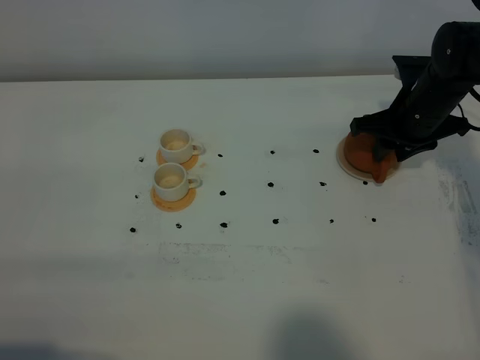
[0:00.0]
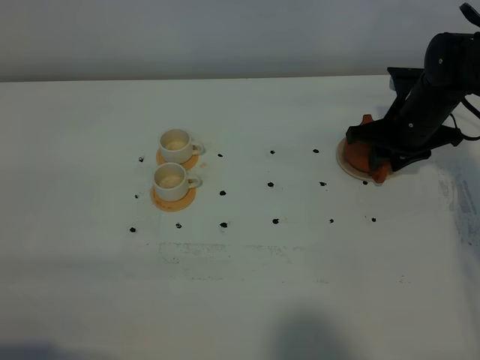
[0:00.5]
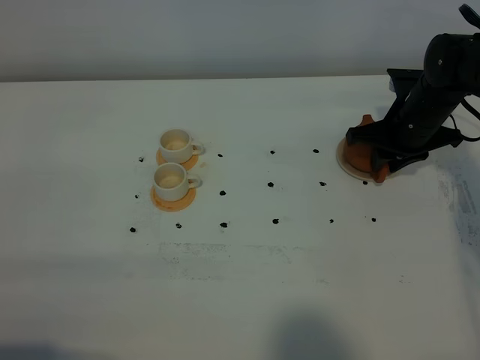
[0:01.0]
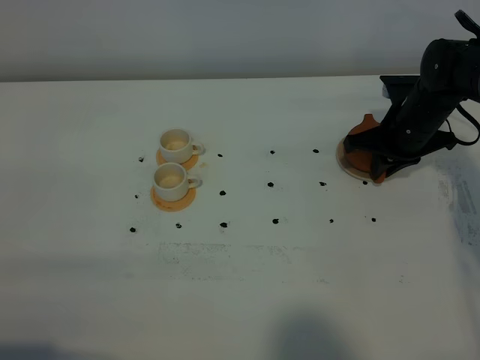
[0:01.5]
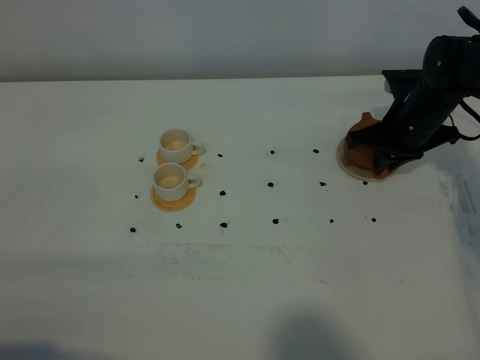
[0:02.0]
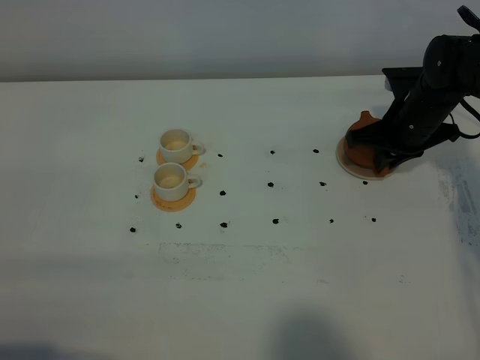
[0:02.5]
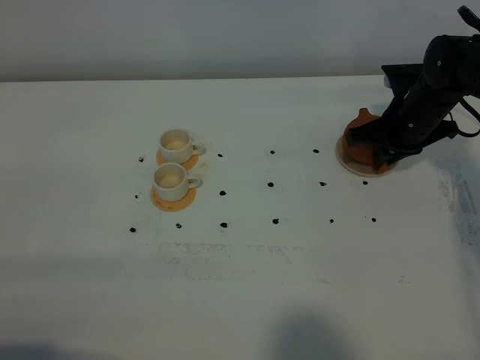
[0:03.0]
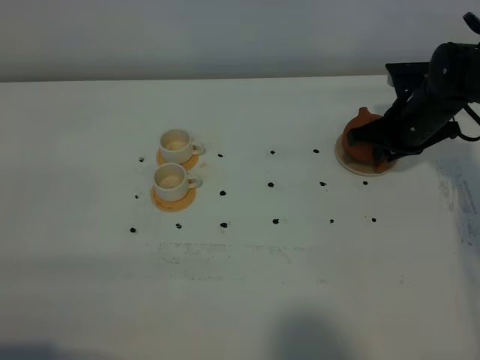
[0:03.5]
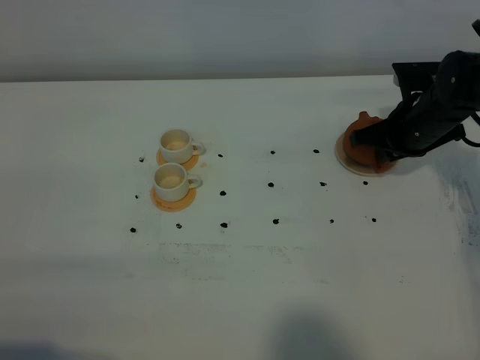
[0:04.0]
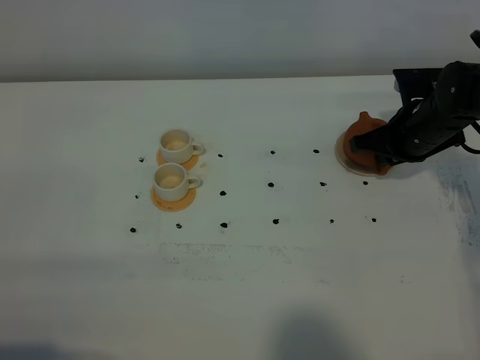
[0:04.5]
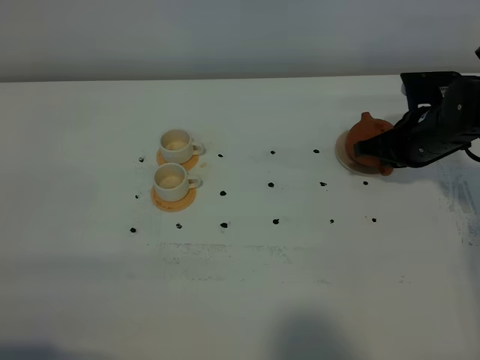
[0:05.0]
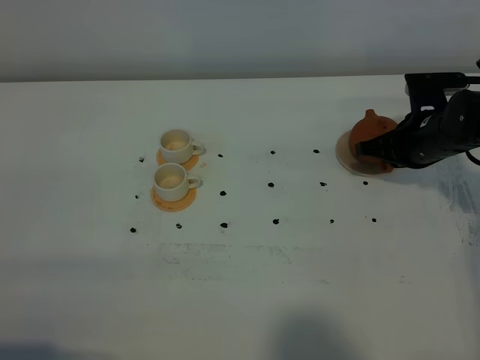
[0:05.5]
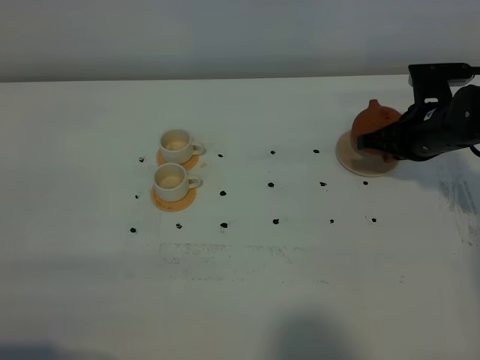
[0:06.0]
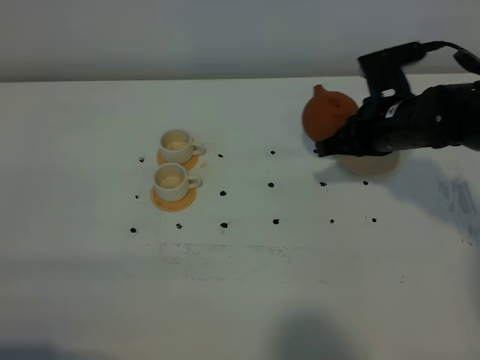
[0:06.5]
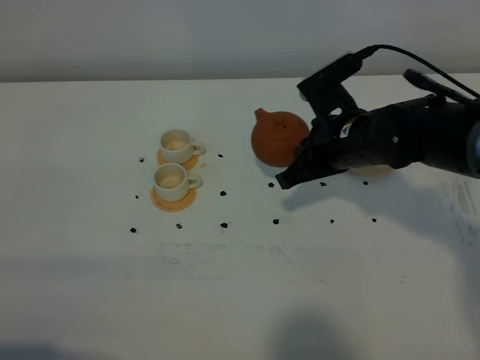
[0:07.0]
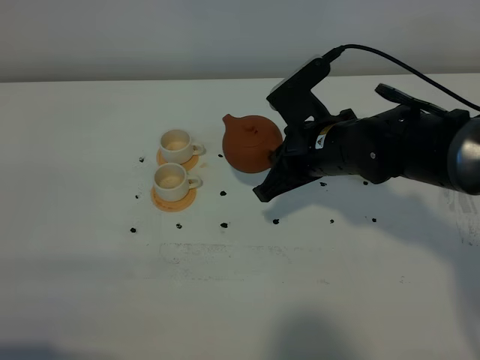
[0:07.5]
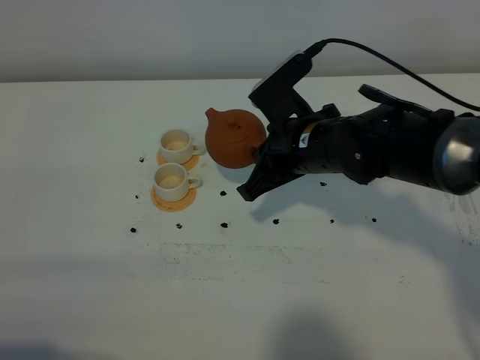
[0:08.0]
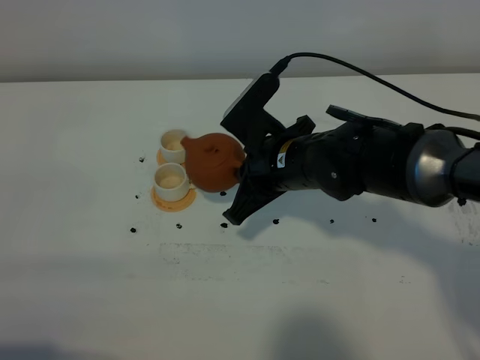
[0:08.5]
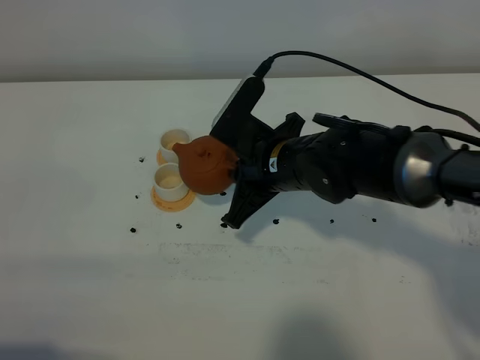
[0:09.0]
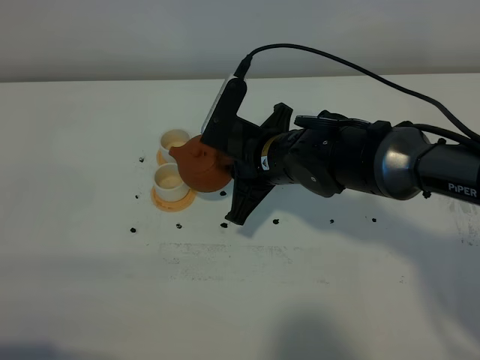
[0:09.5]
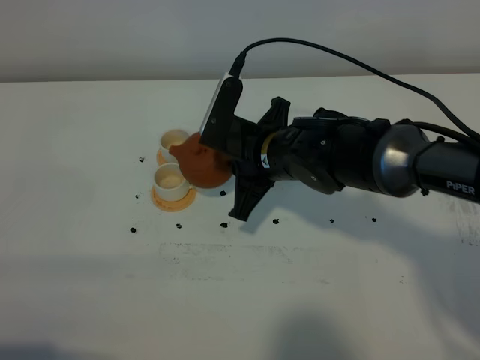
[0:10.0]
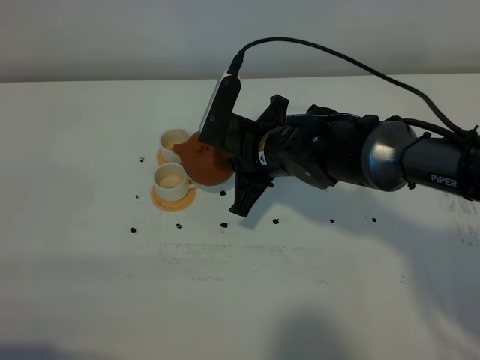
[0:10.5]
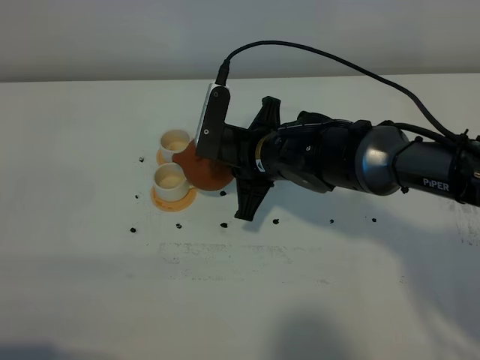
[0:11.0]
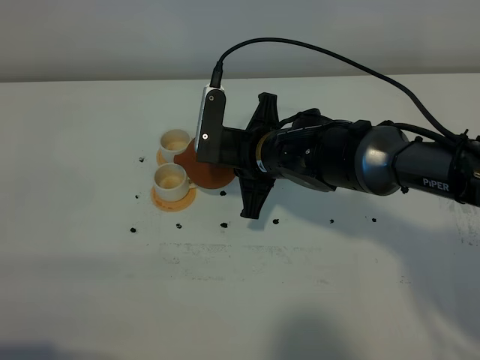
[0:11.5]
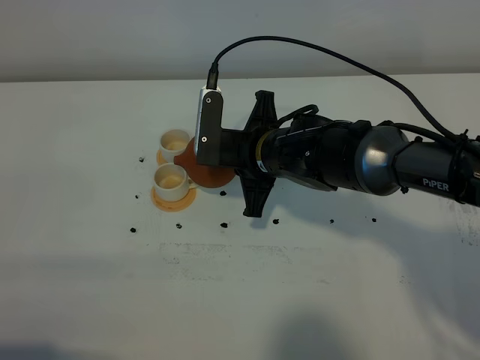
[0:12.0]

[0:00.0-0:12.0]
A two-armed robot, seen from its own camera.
Task of the whole recording: grasp the brown teapot and pour the tea into the two white teacups one by one, put the brown teapot back in its original place.
Step, 0:00.0 to 0:05.5: Pick up the teapot with the right gripper.
0:00.0 to 0:02.0: The right gripper closes up.
0:02.0 to 0:04.0: There are only small adjustments of the grippers.
0:04.0 to 0:06.0: The grippers move only a little.
0:06.0 to 0:08.0: The right gripper moves to the left and backward, about 20 cm.
0:10.0 to 0:12.0: The grippers move only a little.

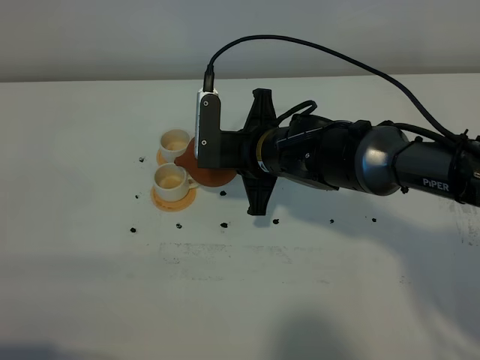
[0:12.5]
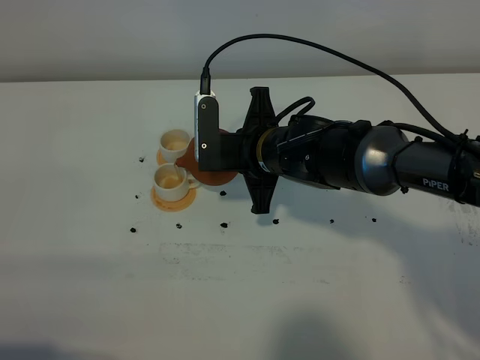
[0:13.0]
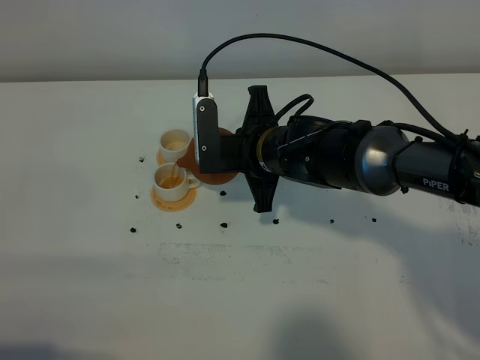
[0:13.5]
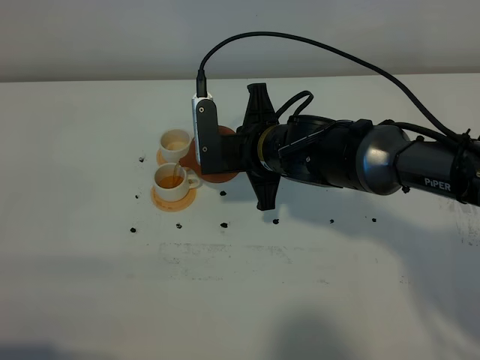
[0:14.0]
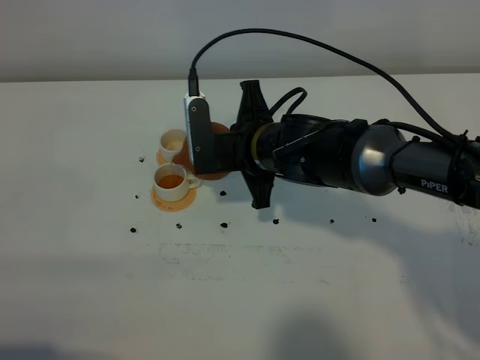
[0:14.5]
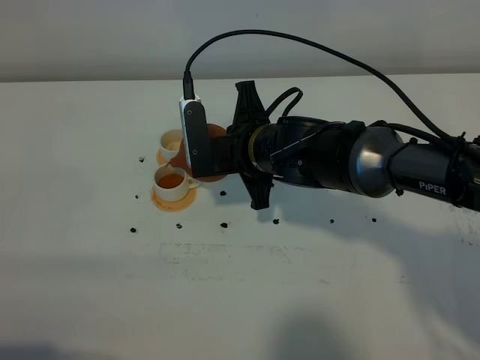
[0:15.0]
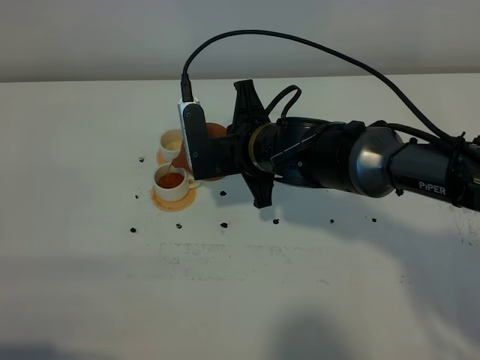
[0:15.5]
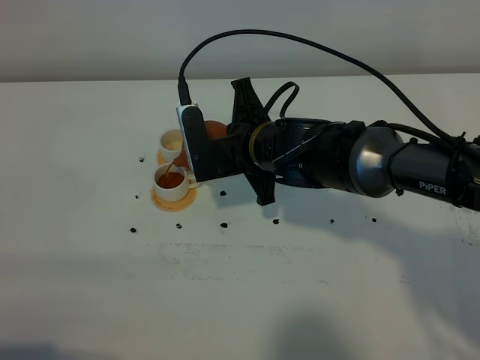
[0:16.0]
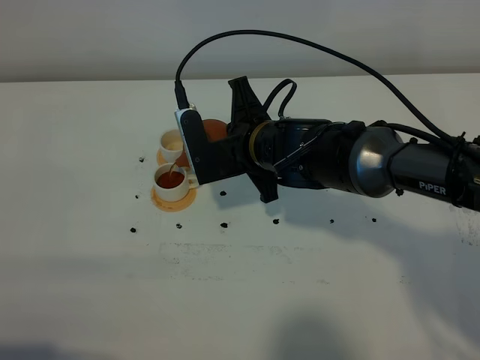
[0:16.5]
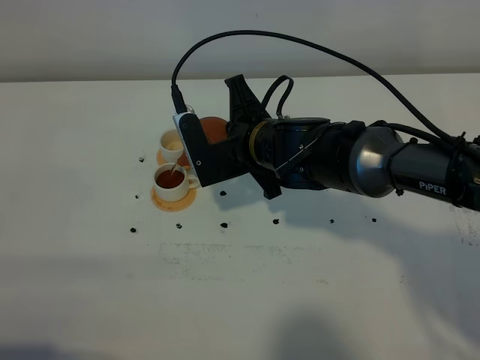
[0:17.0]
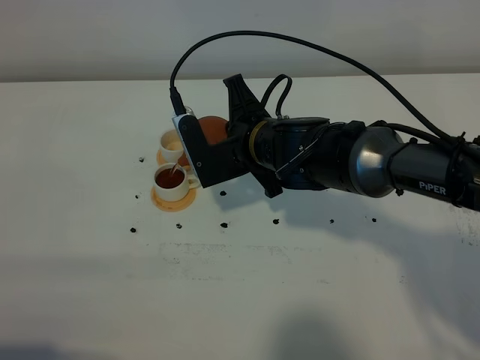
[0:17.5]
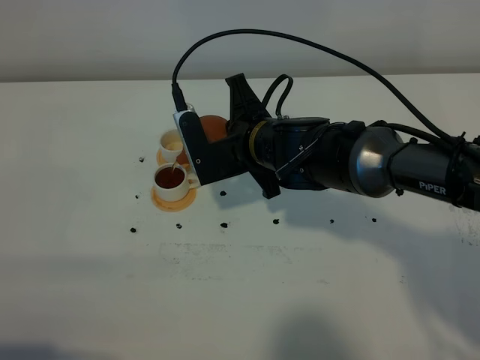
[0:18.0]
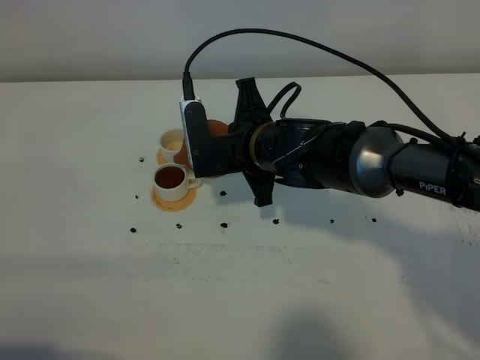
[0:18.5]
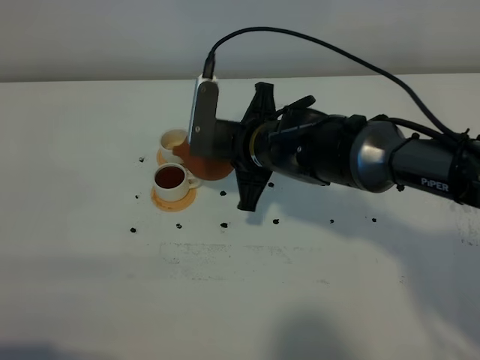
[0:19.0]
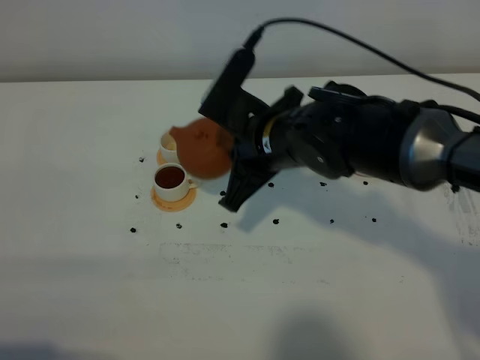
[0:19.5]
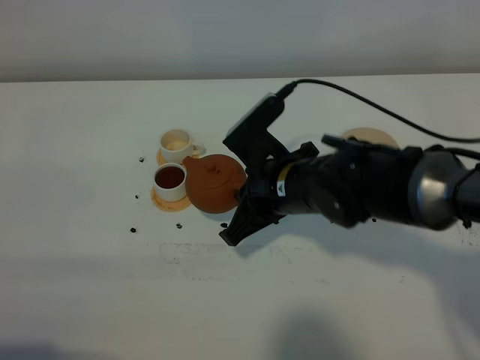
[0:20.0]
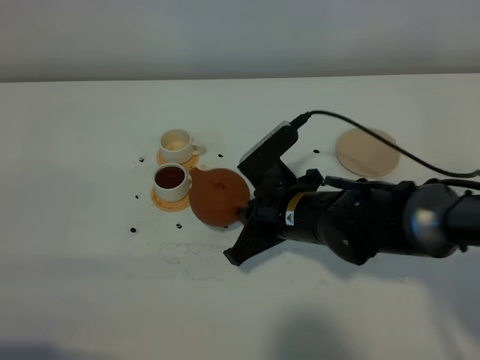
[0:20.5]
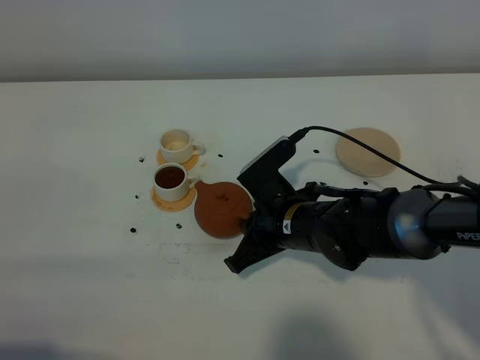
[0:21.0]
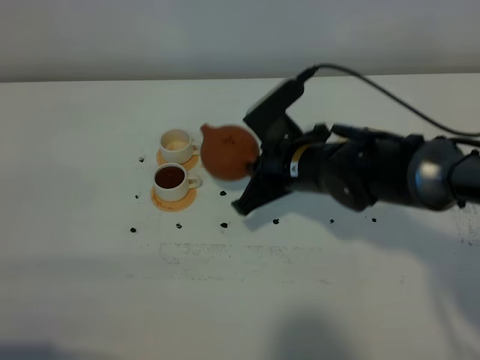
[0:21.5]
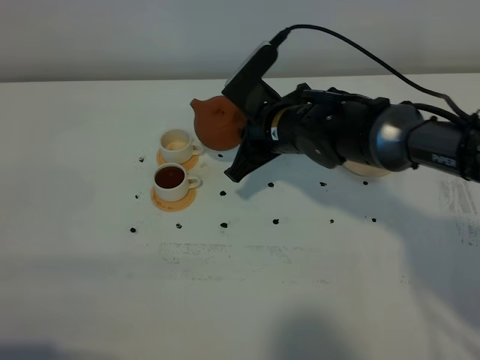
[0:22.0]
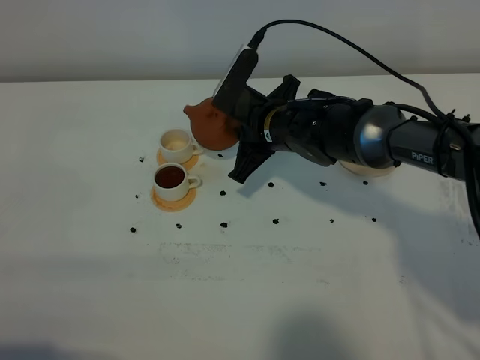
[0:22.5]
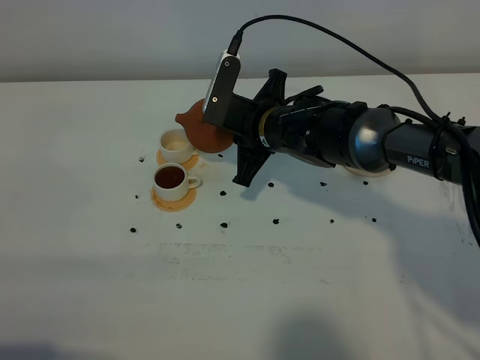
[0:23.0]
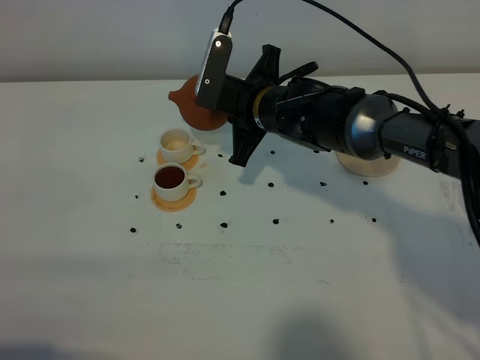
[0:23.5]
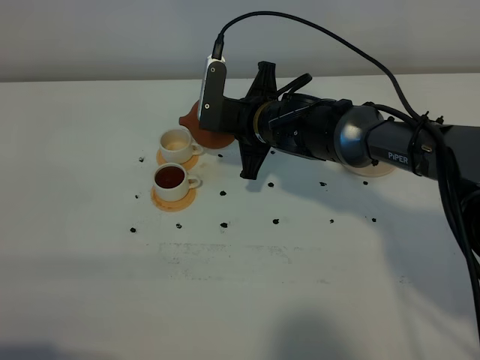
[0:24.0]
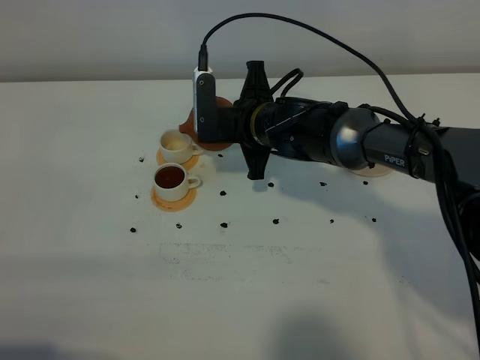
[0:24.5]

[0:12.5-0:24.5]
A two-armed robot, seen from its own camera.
Task of the whole recording: grasp the brown teapot and pour the tea into the two white teacups one by one, put the brown teapot back in its original place.
Step, 0:12.5 to 0:19.0: Pour tea into the teacup with the right gripper.
0:12.5 to 0:14.5: The grippers stay close to where they were, moving slightly.
0:14.5 to 0:18.5: The grippers stay close to where they were, moving slightly.
0:18.5 to 0:20.5: The right gripper shifts some 5 cm backward.
0:20.5 to 0:22.5: The right gripper heads forward, covering about 10 cm.

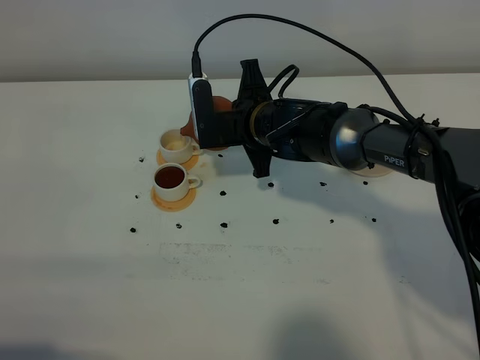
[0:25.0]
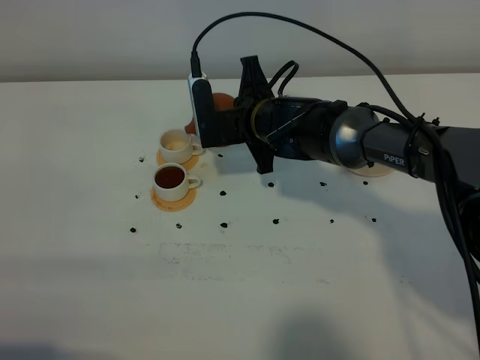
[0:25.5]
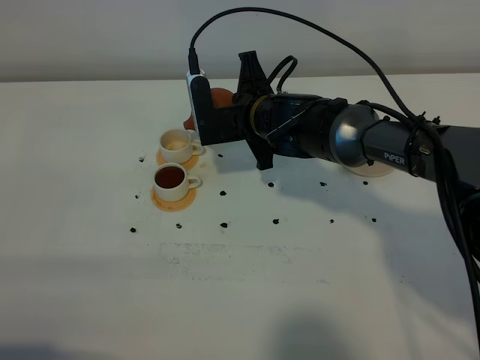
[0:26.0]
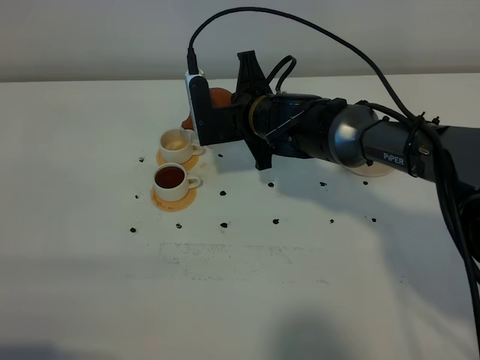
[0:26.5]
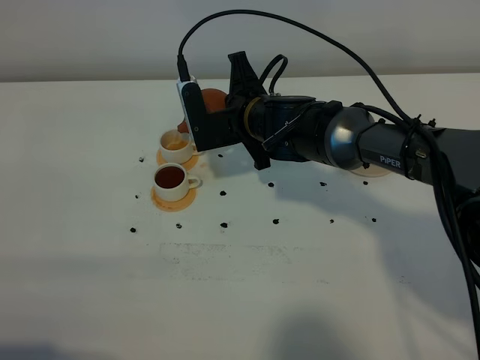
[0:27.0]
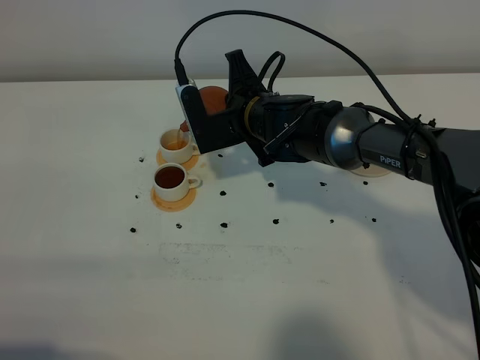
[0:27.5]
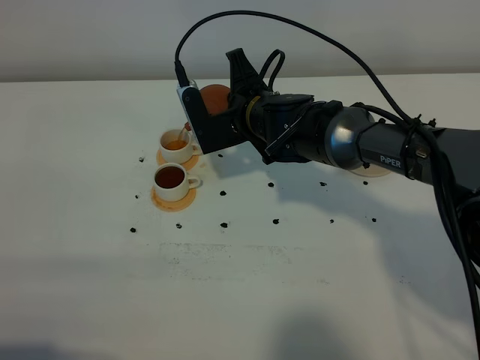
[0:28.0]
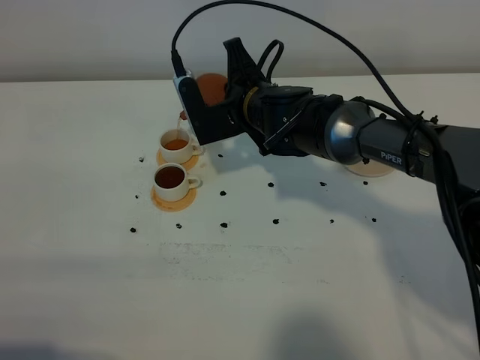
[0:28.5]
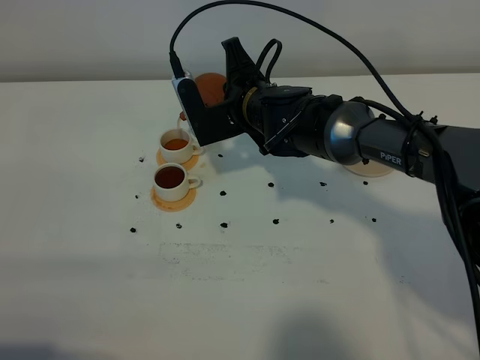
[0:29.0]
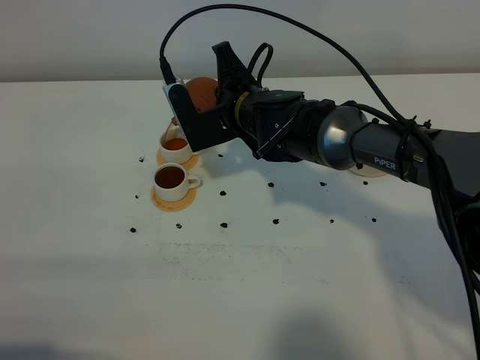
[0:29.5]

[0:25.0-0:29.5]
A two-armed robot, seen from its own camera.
Task of the whole recording: grasp the brown teapot and pour the tea into the two white teacups one by one, put the brown teapot back in its original place.
0:25.0 to 0:29.5: The grippers move only a little.
